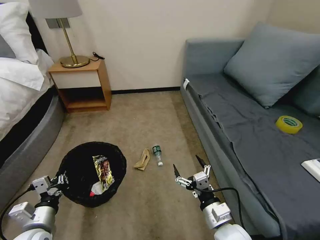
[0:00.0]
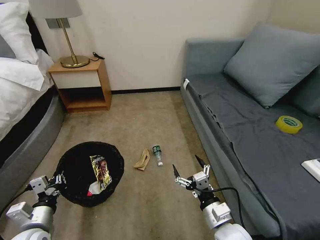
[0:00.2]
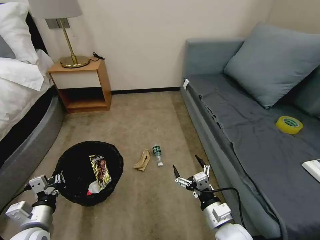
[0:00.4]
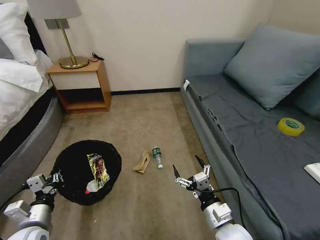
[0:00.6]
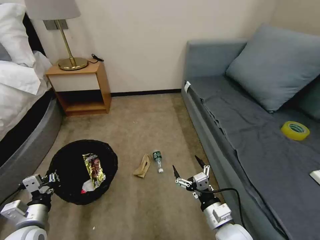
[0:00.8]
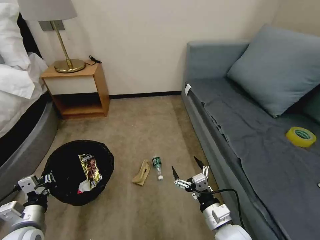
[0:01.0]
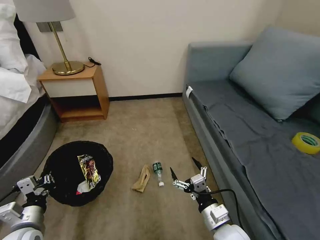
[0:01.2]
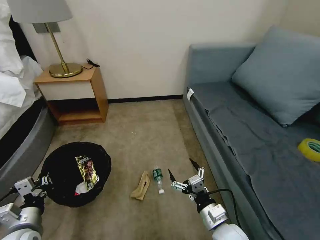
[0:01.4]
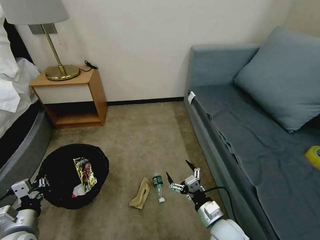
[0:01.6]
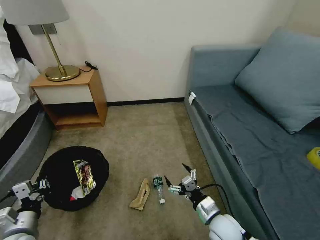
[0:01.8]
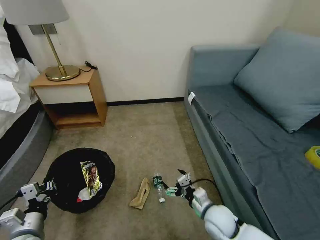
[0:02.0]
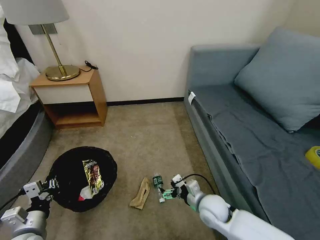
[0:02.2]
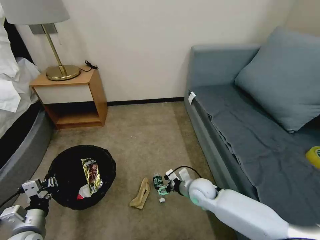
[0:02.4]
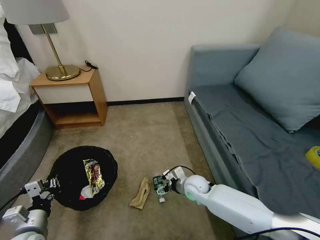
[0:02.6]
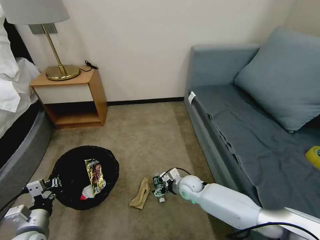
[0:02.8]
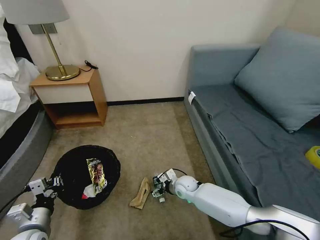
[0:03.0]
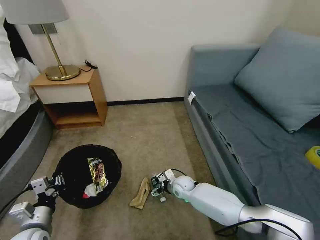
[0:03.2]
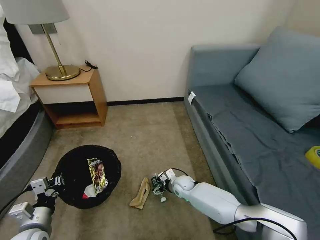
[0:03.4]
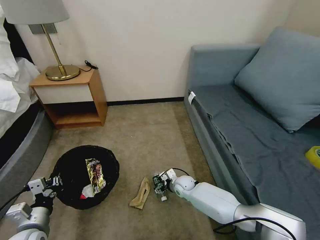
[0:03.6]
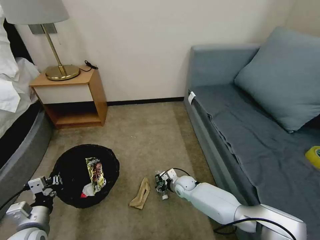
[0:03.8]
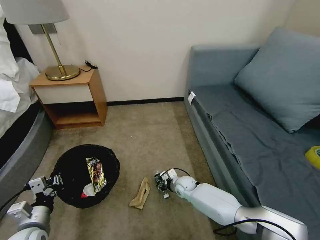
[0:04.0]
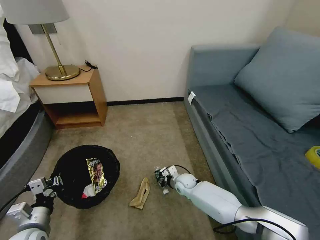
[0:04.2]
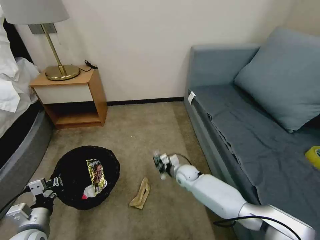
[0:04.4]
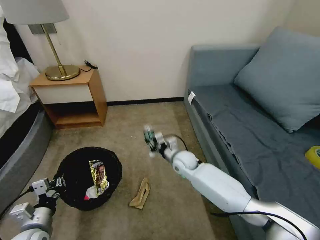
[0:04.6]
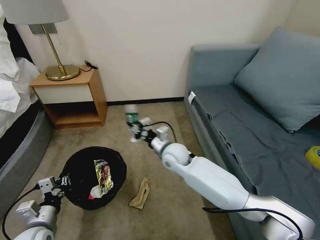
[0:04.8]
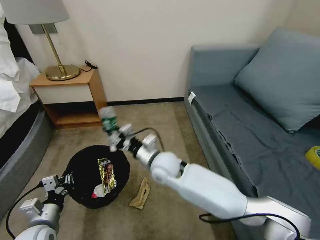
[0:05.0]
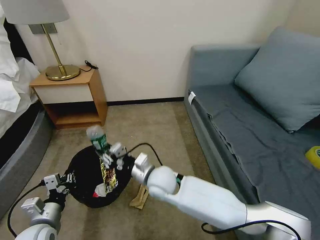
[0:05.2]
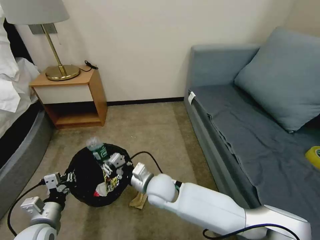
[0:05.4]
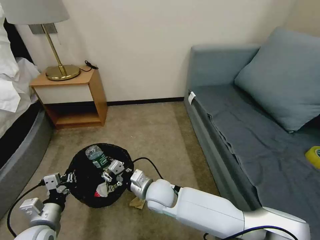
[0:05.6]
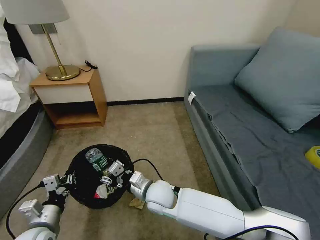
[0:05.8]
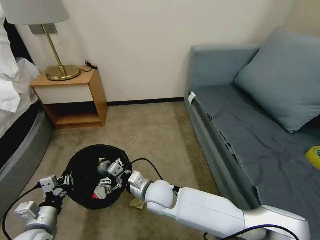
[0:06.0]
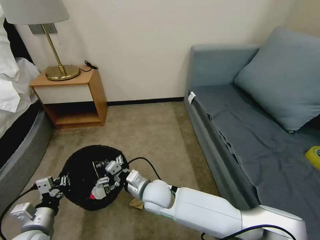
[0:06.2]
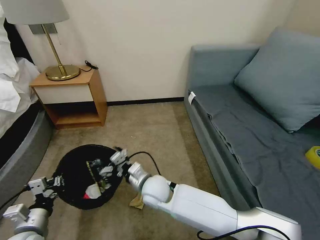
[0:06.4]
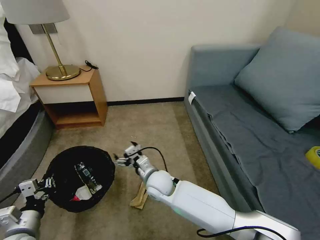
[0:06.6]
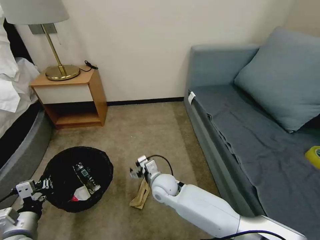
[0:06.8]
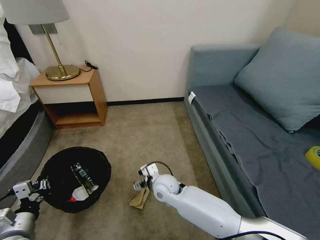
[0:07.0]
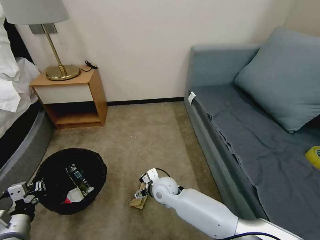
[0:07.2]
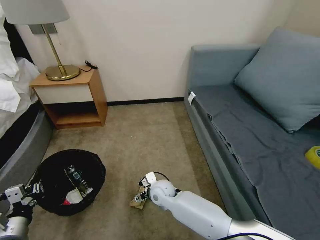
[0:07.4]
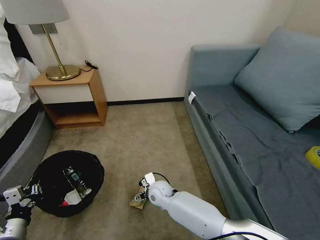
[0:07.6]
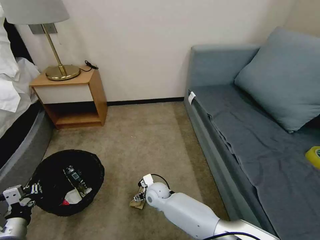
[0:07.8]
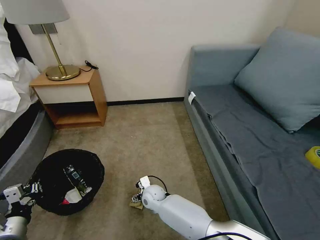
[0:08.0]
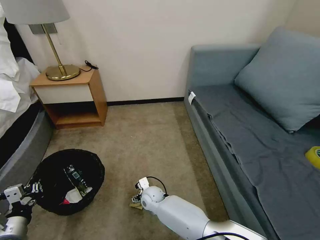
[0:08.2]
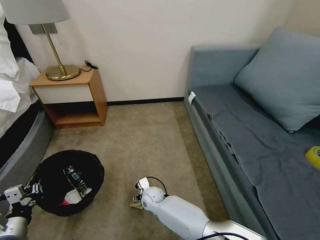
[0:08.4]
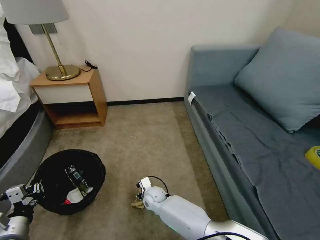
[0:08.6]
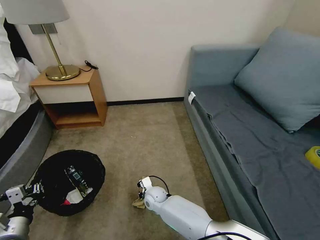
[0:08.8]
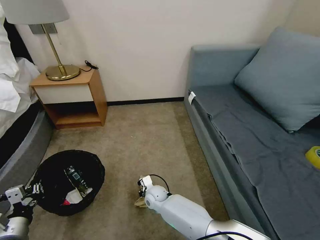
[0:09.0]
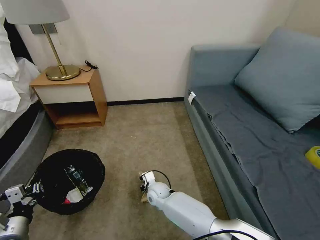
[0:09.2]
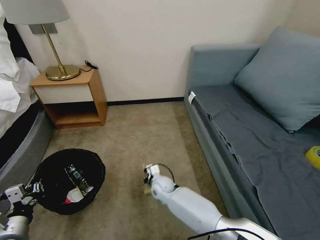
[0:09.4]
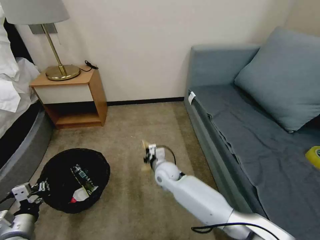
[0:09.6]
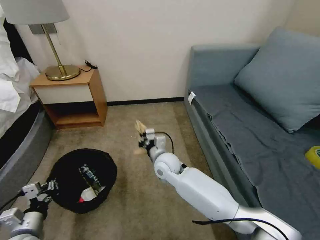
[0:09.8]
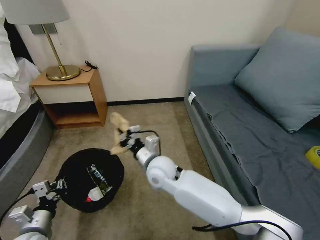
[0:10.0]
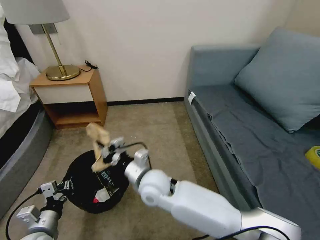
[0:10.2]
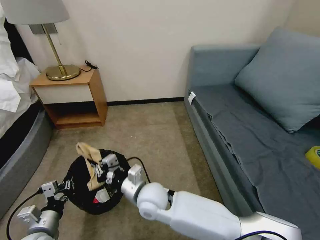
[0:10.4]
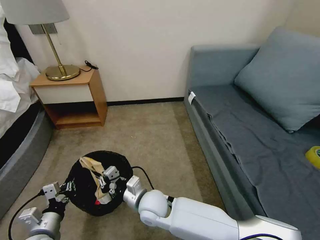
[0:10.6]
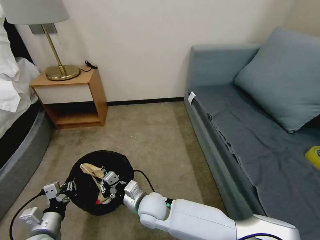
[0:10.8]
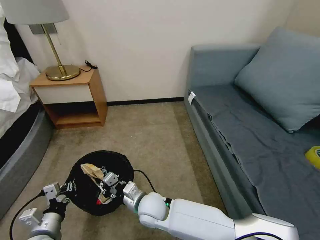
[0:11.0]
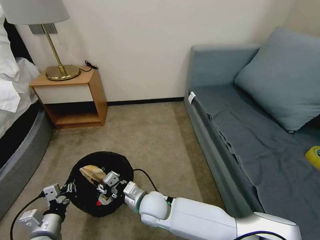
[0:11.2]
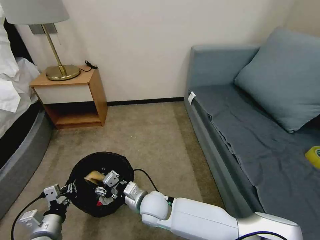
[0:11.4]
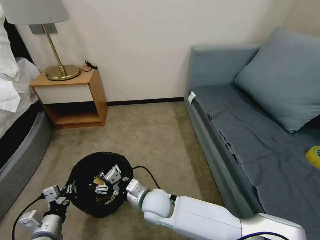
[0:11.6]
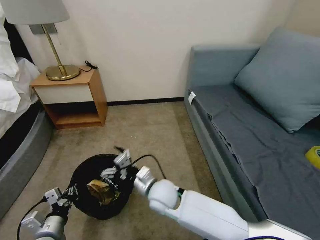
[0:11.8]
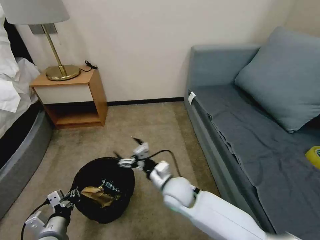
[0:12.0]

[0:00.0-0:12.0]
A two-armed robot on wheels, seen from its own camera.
Task of the whole recording: Pick up the trash bin, then pick up the garbage on the floor and place it into the trash bin.
0:01.6 to 0:03.0: The right gripper travels forward, downward and to the left by some 25 cm.
0:03.0 to 0:04.4: The right gripper closes.
0:04.4 to 0:06.0: The right gripper moves backward, to the left and upward, about 20 cm, and opens up.
0:06.0 to 0:07.6: The right gripper goes roughly 10 cm downward and forward. The left gripper heads to the left, covering roughly 5 cm.
0:07.6 to 0:09.0: The right gripper moves downward, roughly 5 cm, and closes.
0:09.0 to 0:10.4: The right gripper travels upward and backward by approximately 20 cm. Meanwhile the left gripper is displaced to the right by some 5 cm.
0:10.4 to 0:12.0: The right gripper is displaced to the right by about 10 cm, and opens up.

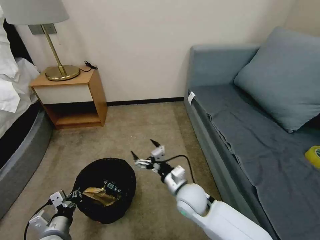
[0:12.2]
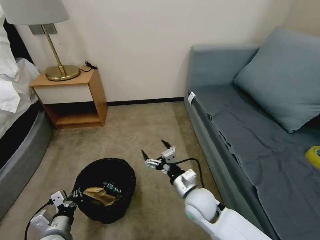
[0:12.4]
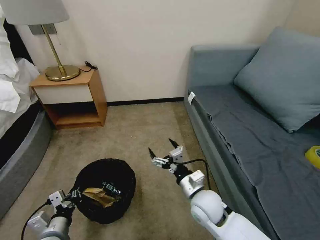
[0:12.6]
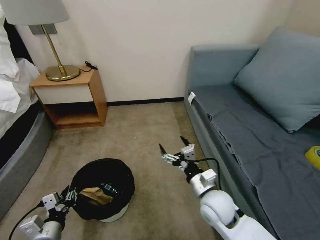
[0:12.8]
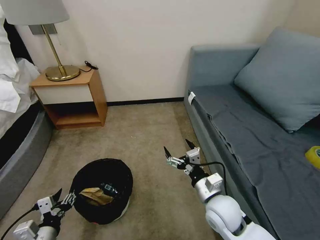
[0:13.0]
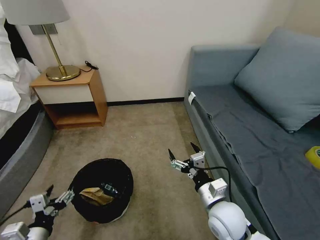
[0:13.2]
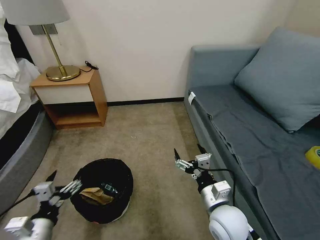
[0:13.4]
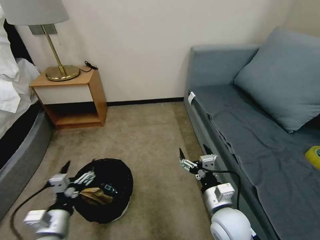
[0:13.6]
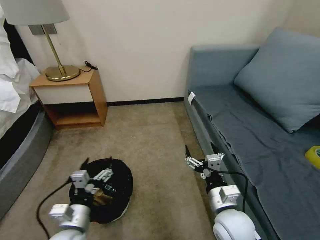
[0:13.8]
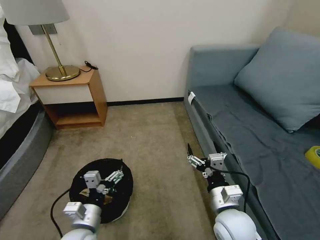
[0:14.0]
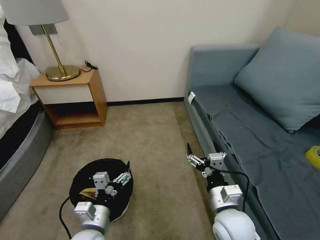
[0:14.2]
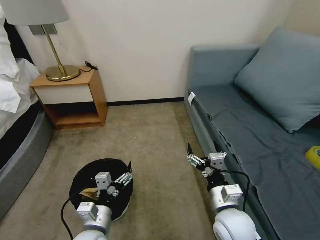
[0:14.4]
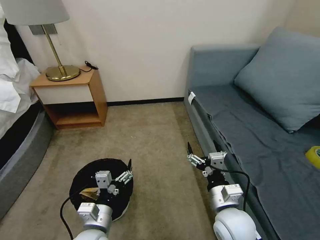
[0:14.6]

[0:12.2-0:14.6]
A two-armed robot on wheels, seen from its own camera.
Task of the whole recording: Pick up the trash bin, then pick up the garbage on the floor and place it into the trash bin.
0:12.2 to 0:13.4: The right gripper moves to the right and backward, some 10 cm; the left gripper moves upward, roughly 10 cm, and opens.
0:13.4 to 0:14.6: The left gripper travels to the right by roughly 15 cm.

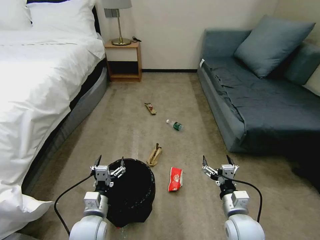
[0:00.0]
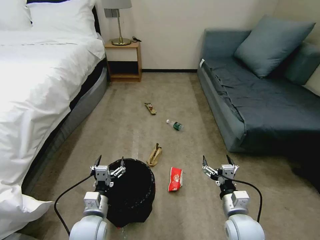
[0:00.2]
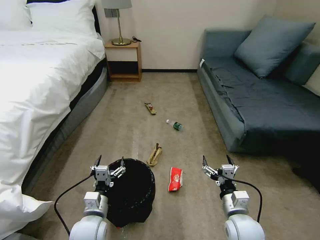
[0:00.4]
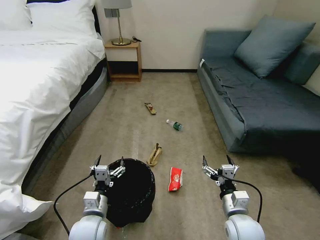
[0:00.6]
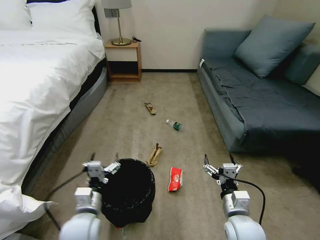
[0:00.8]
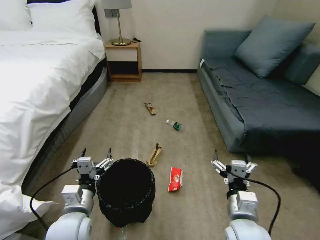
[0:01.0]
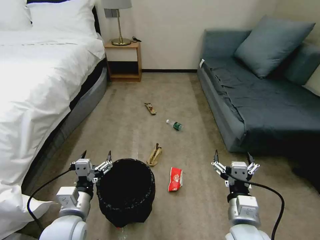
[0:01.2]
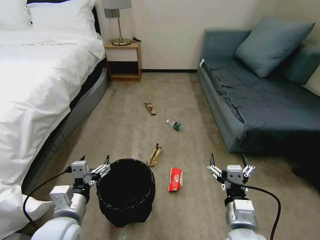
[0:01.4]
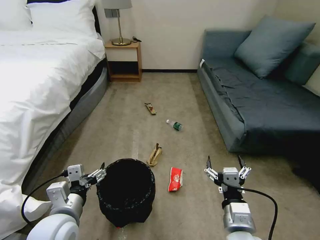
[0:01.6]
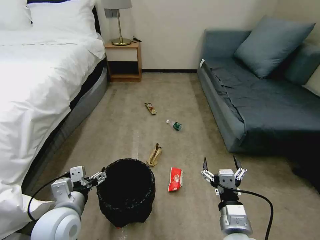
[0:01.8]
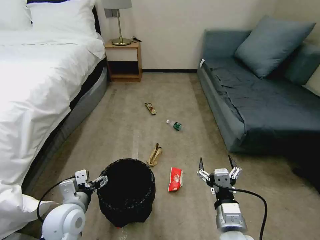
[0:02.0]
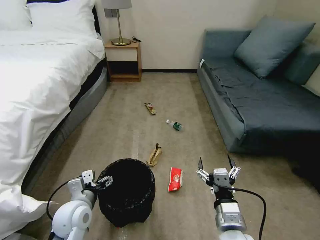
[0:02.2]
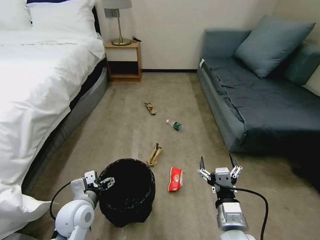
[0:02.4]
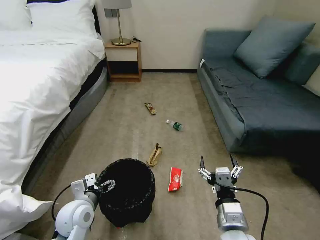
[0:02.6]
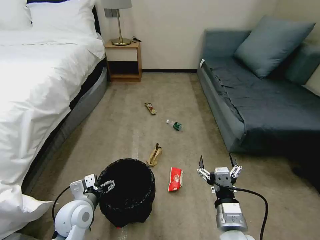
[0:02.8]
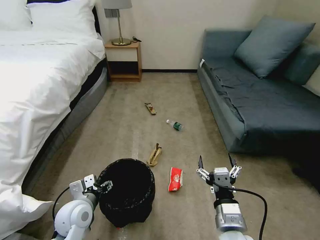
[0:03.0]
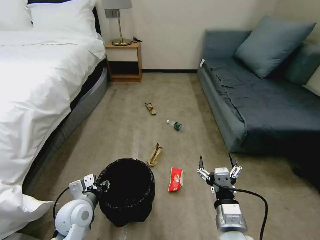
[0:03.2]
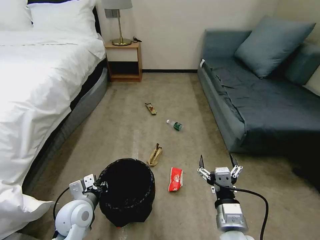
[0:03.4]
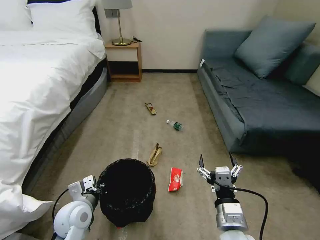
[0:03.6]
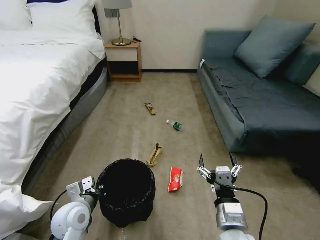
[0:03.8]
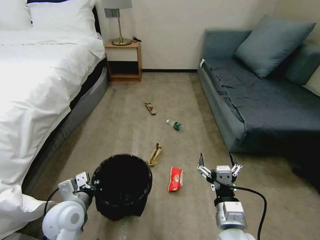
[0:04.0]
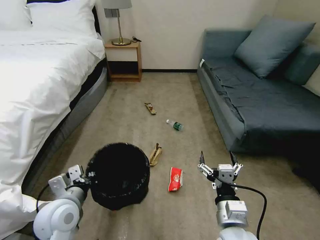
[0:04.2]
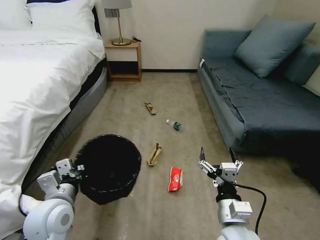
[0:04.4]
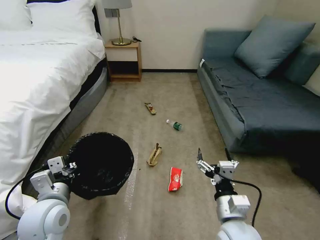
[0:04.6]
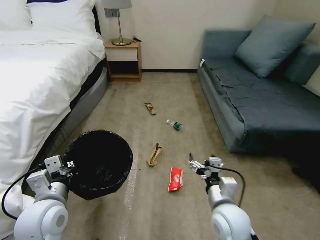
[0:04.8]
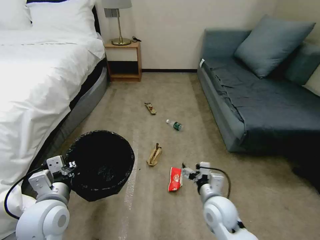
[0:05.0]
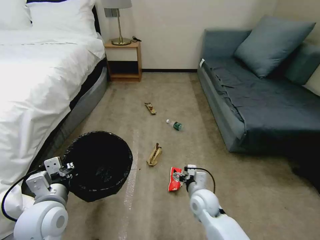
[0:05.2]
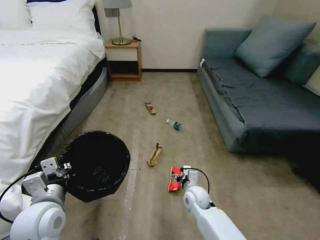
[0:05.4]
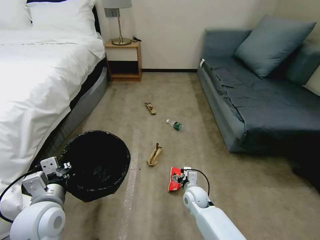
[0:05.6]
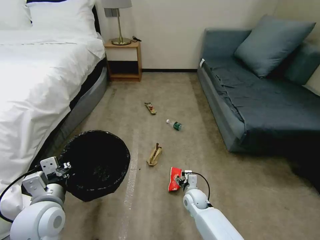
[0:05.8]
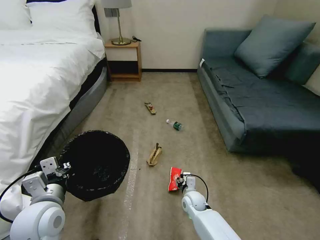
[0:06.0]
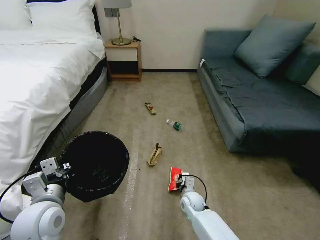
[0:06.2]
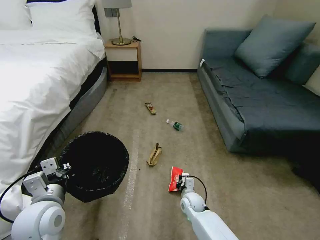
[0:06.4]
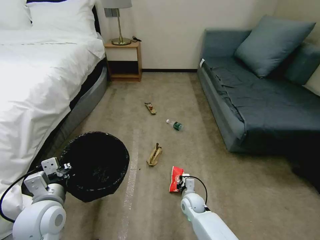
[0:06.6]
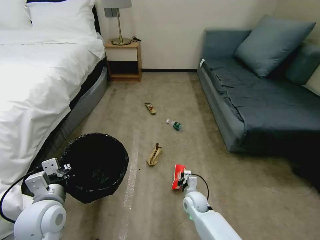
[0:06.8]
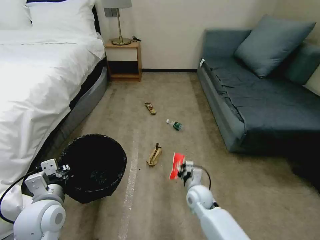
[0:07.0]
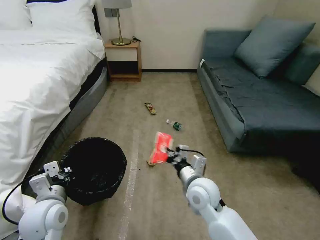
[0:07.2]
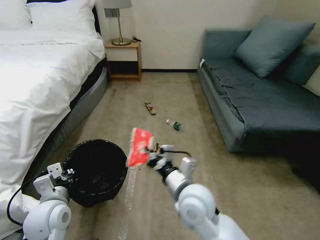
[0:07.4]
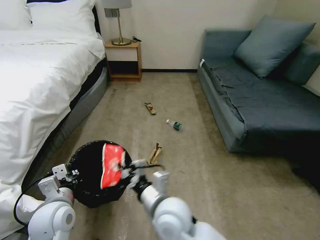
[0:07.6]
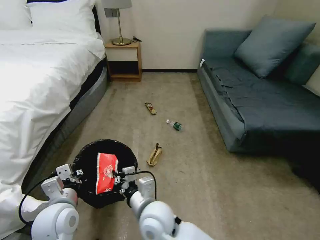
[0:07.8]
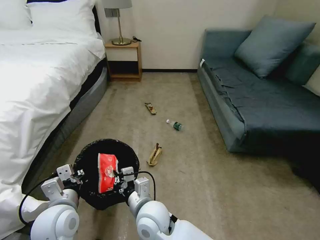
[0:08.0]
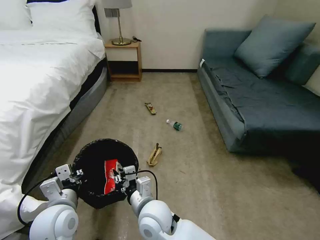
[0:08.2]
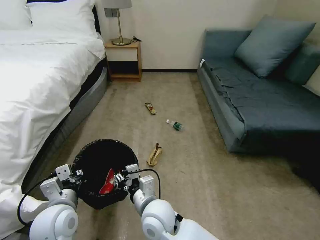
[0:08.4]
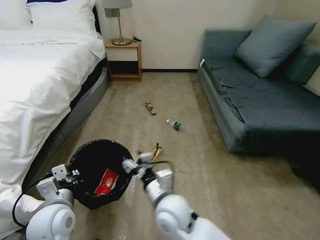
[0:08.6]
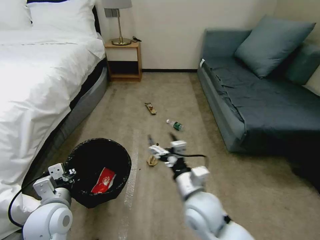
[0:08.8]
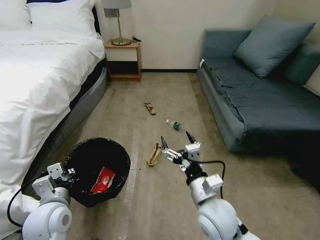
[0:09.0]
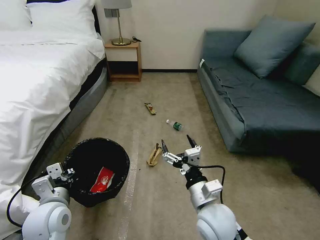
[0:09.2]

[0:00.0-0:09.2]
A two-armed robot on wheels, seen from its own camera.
Task of the whole recording: Pick up the trash bin, then pick up the garbage on the floor and place it into the trash bin.
0:01.6 to 0:03.0: The left gripper is displaced downward and forward by some 10 cm.
0:03.0 to 0:04.6: The left gripper is displaced upward by roughly 10 cm, and closes up.
0:04.6 to 0:06.2: The right gripper goes roughly 25 cm downward and forward, and closes.
0:06.2 to 0:07.6: The right gripper heads upward, backward and to the left, covering roughly 30 cm.
0:07.6 to 0:09.2: The right gripper heads to the right, covering roughly 10 cm, and opens.
